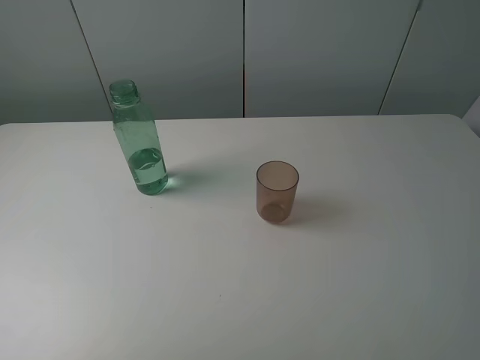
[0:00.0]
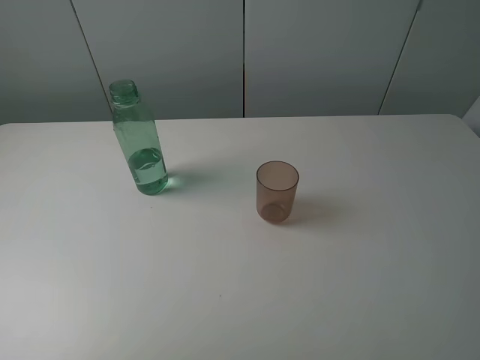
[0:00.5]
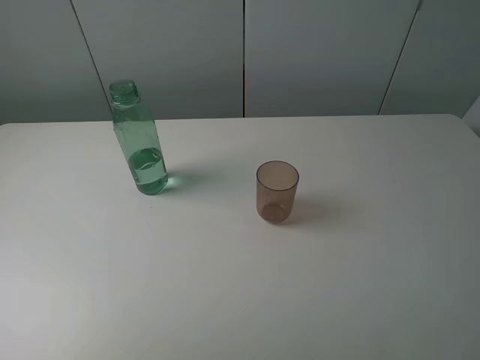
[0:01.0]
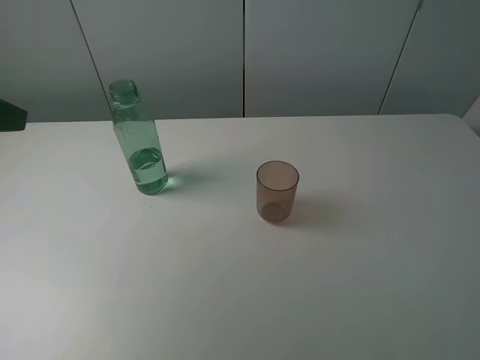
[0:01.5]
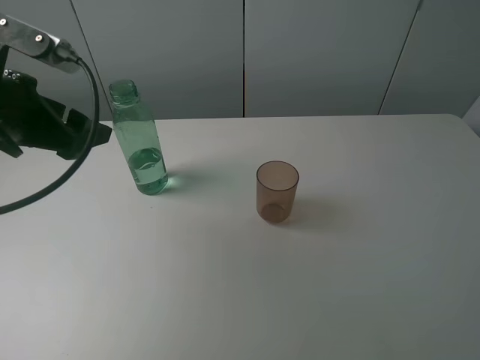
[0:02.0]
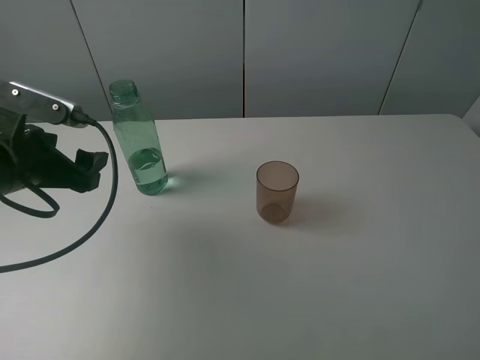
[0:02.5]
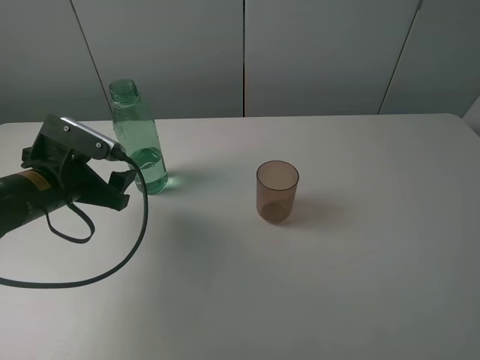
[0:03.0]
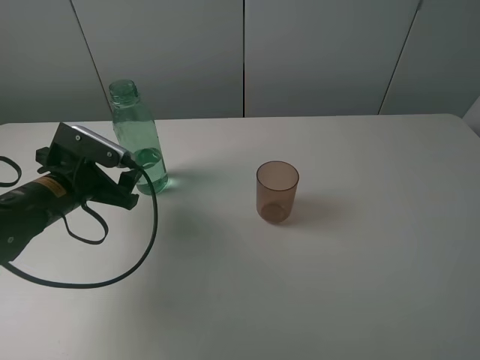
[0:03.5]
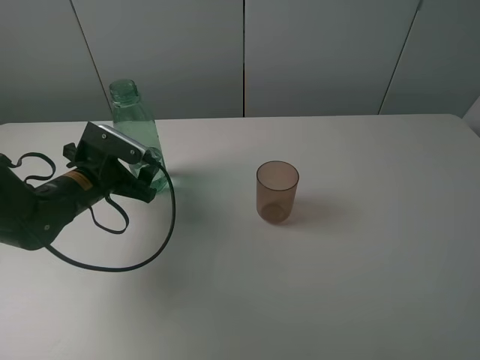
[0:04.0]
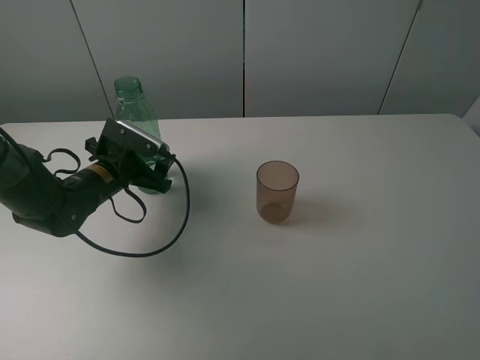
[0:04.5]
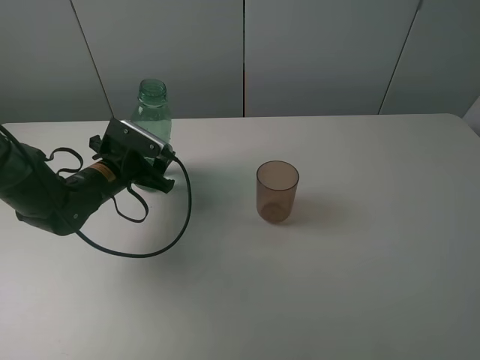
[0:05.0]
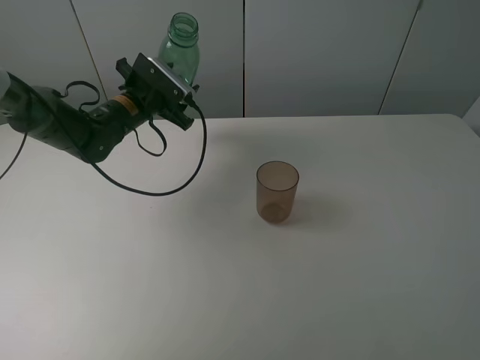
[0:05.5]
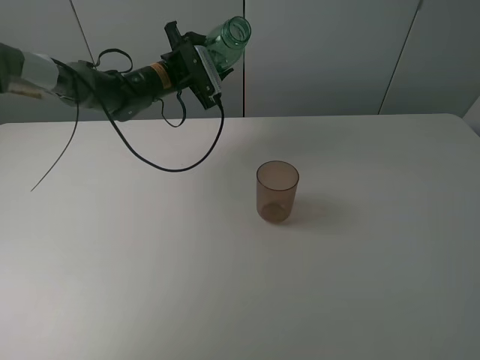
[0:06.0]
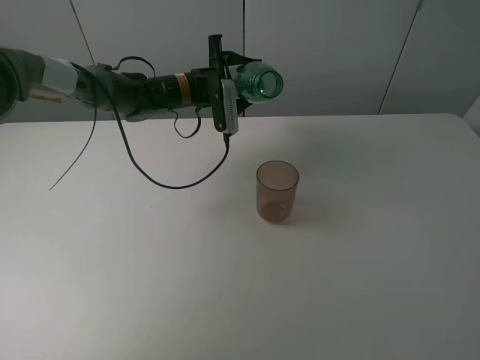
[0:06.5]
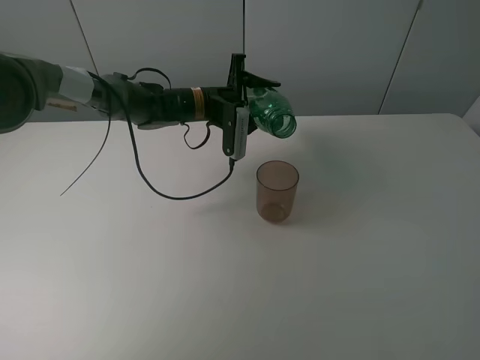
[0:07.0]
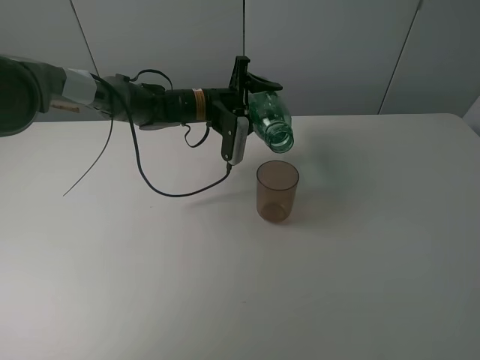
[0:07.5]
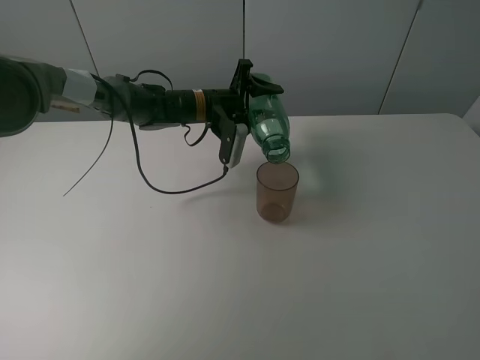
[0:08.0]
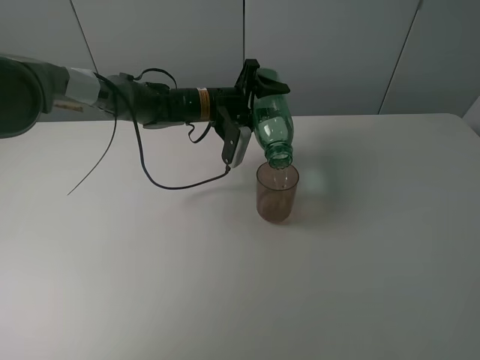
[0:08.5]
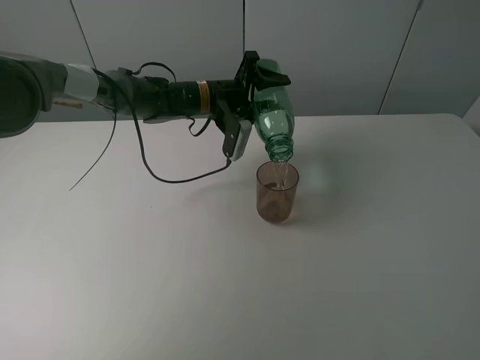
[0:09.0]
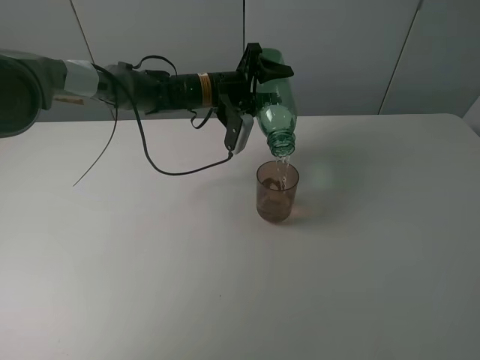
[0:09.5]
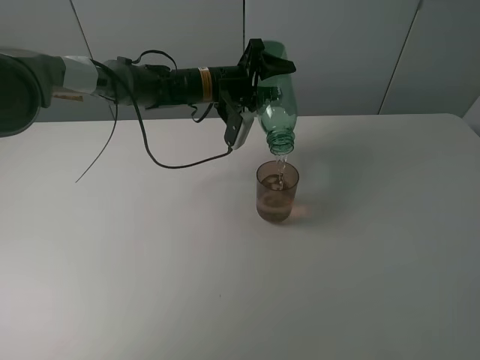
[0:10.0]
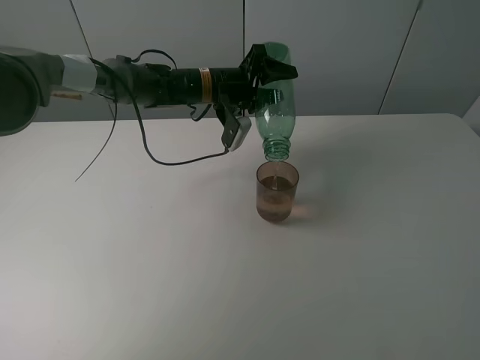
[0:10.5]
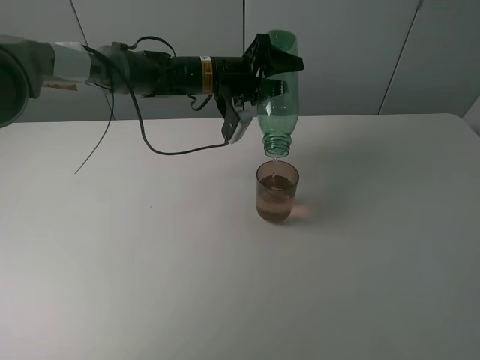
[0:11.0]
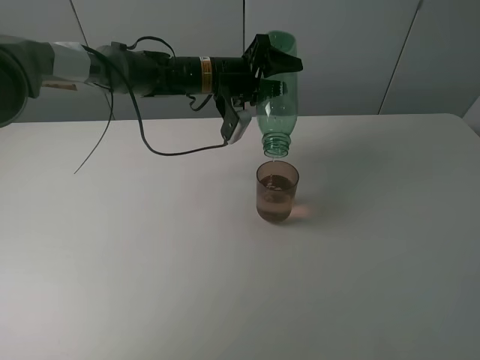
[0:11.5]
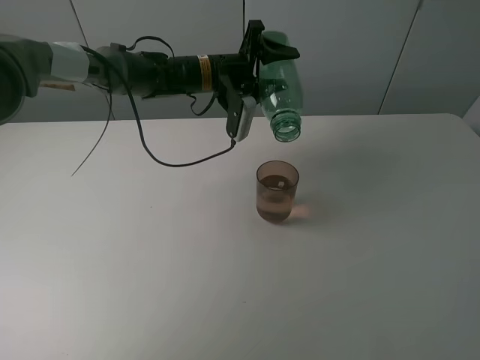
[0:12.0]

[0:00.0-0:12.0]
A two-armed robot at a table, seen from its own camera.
Task of the whole recording: pick up the bottle filled with water and pour it into the pink cup.
Step, 0:00.0 to 0:04.5: Grasp the green bottle with the left gripper.
0:00.0 to 0:02.0: The left gripper heads forward, covering some 25 cm.
0:02.0 to 0:04.0: The left gripper goes some 15 cm downward.
0:04.0 to 0:06.0: The left gripper moves forward and to the right, about 20 cm, and closes up.
0:06.0 to 0:08.0: The left gripper shifts some 5 cm to the right.
0:08.0 to 0:10.0: The grippers move only a little.
0:10.0 to 0:12.0: The grippers stay close to where they were, moving slightly.

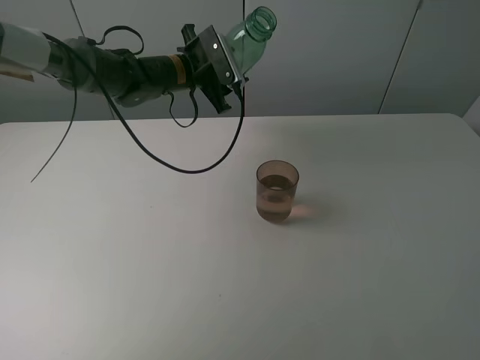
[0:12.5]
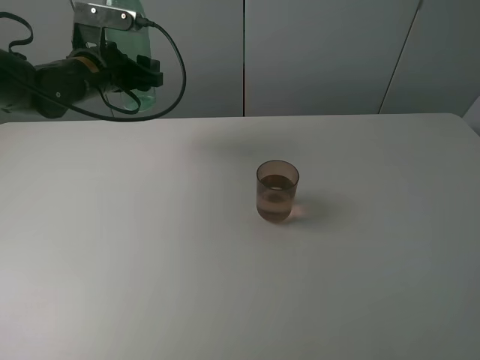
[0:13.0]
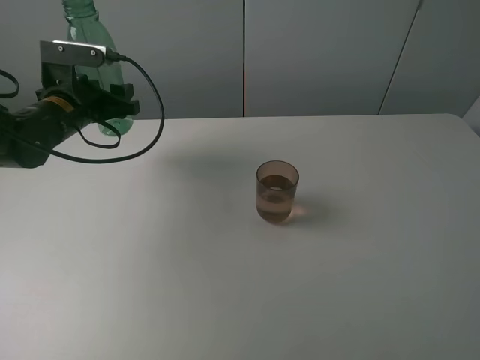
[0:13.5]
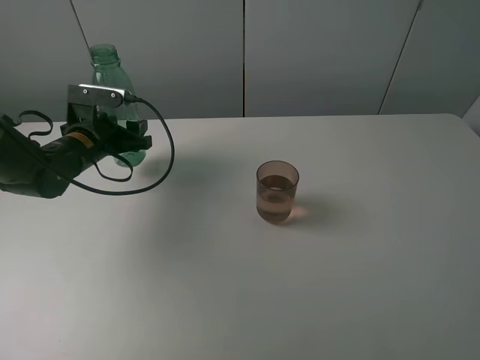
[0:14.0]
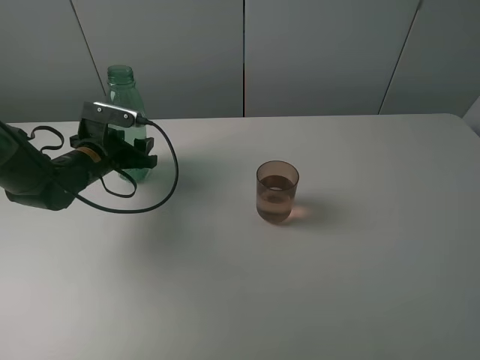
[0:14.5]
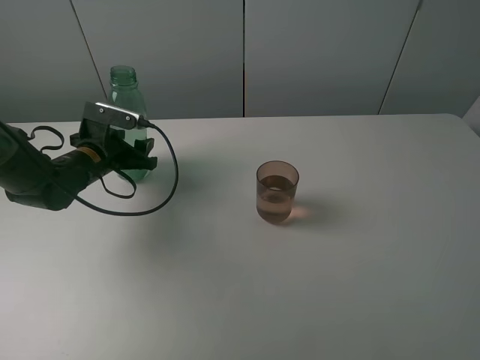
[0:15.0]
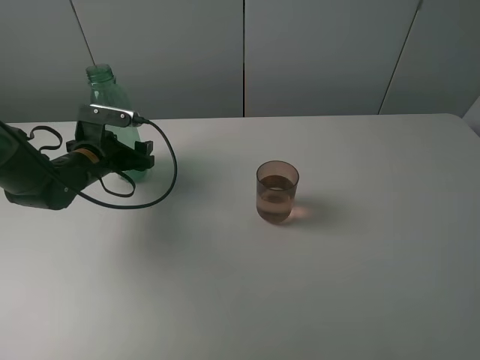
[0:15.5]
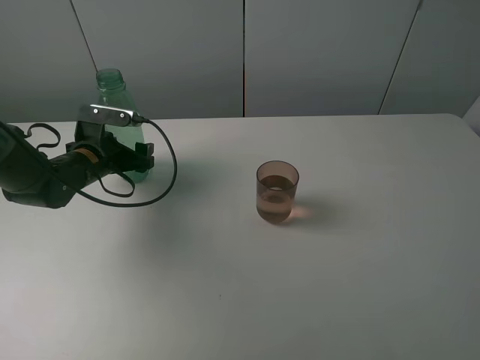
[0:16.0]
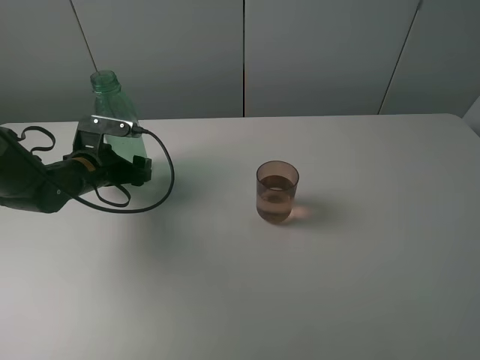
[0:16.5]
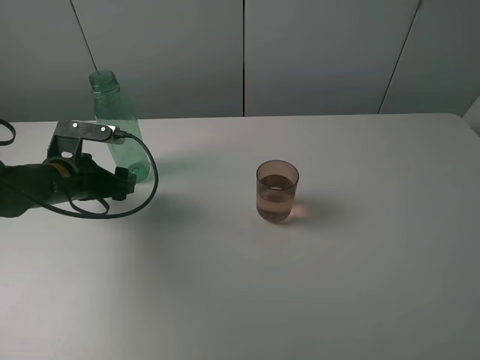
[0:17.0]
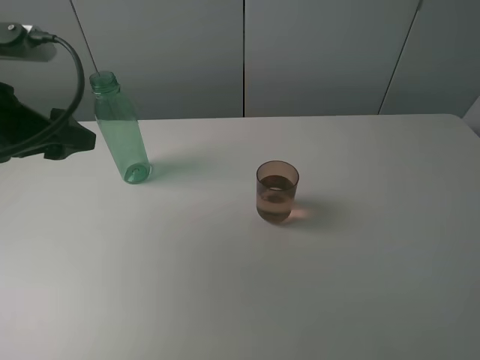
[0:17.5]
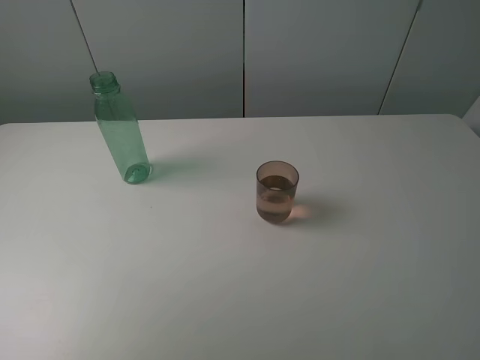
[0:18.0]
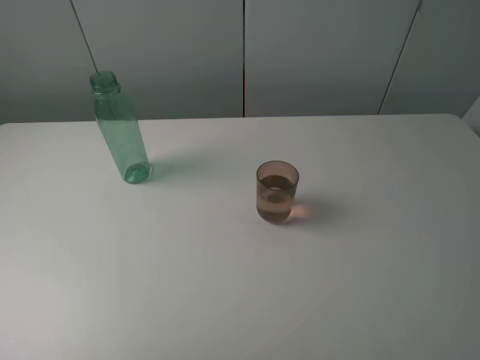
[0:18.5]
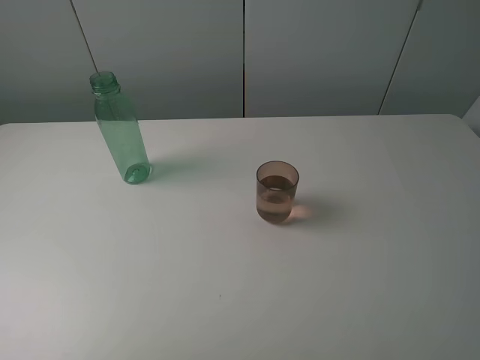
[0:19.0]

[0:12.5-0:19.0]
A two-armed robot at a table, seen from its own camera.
Task of the whole recording: pick up the bottle filled with water and pour it into the pink cup.
Step, 0:12.5 to 0:16.5: Place the green bottle with the left gripper.
0:12.5 to 0:14.5: The left gripper goes some 20 cm to the left, backward and downward.
0:14.5 to 0:17.0: The left gripper travels backward by approximately 5 cm, and opens its fingers.
0:17.0 to 0:19.0: The left gripper goes roughly 35 cm backward and upward.
